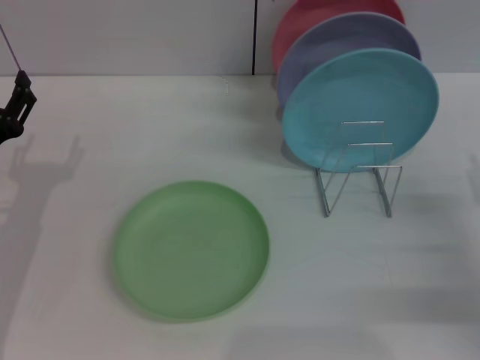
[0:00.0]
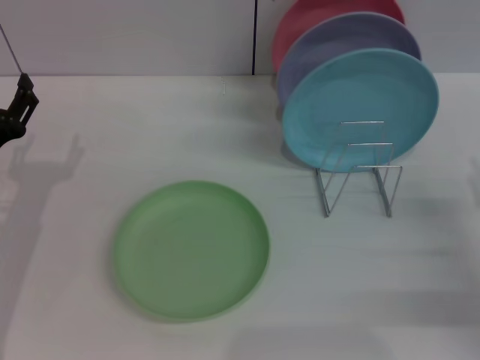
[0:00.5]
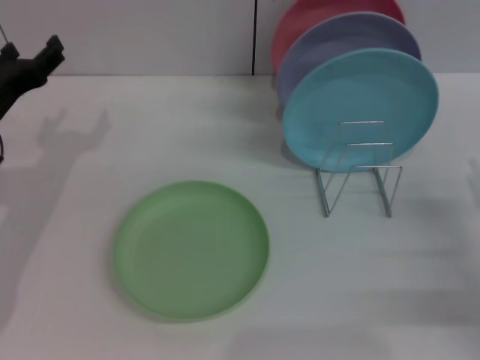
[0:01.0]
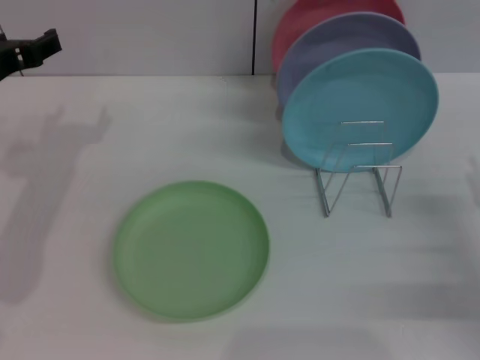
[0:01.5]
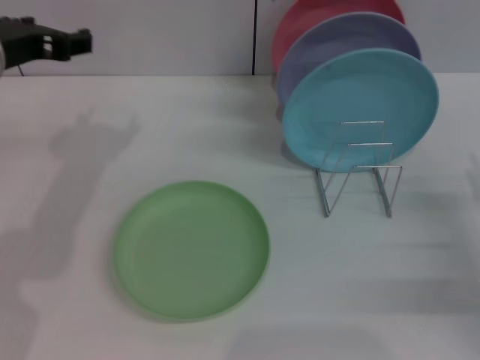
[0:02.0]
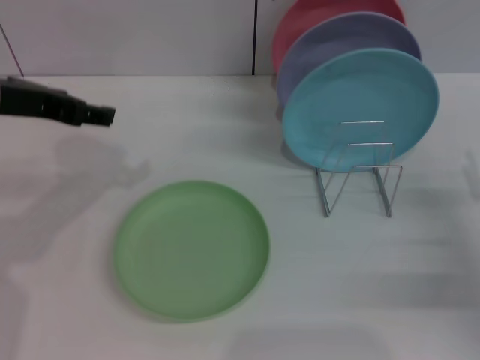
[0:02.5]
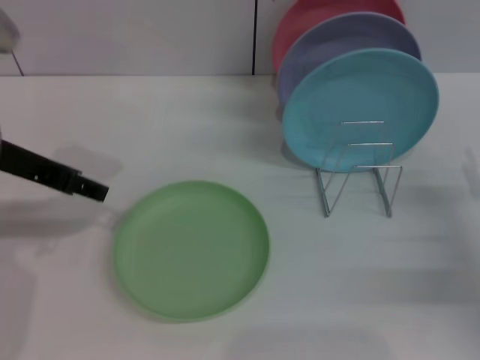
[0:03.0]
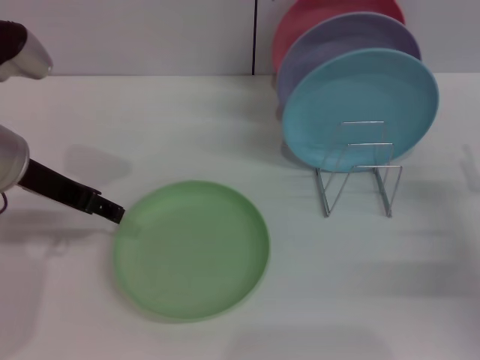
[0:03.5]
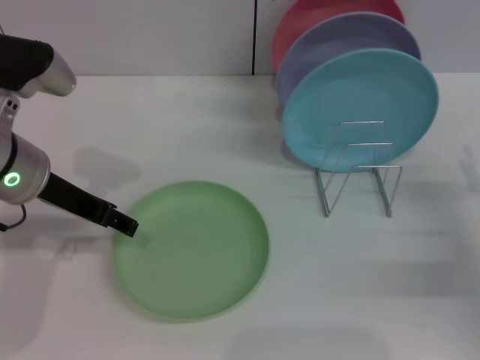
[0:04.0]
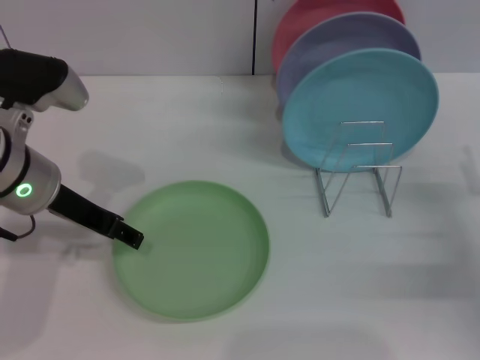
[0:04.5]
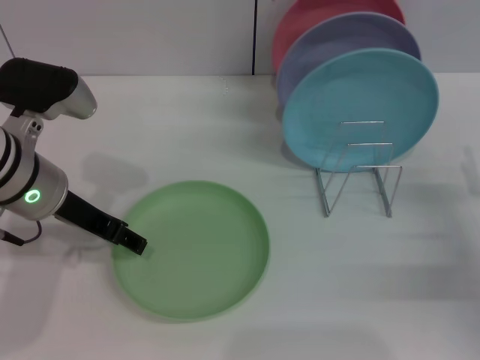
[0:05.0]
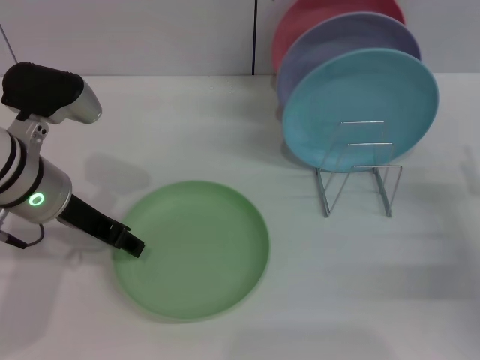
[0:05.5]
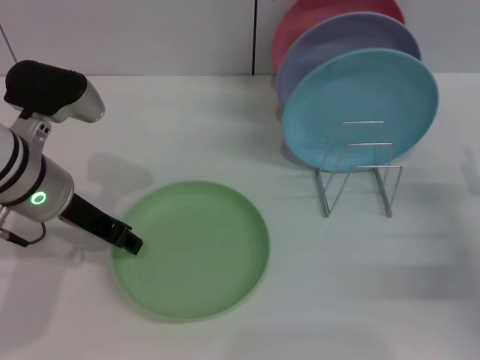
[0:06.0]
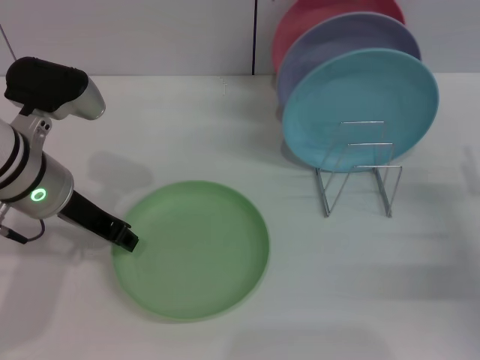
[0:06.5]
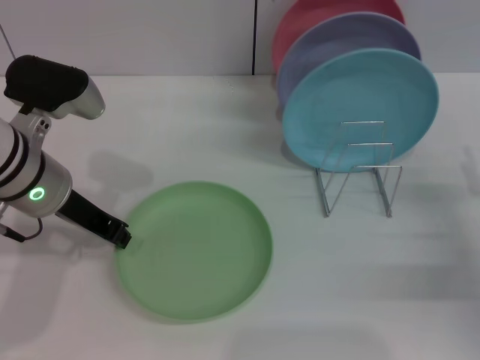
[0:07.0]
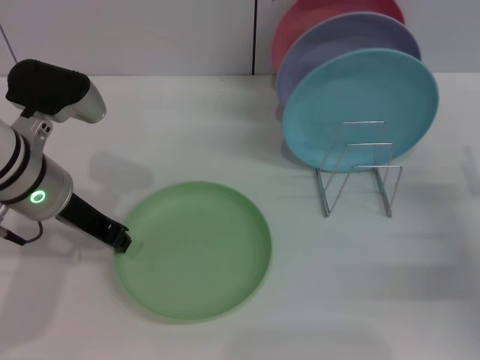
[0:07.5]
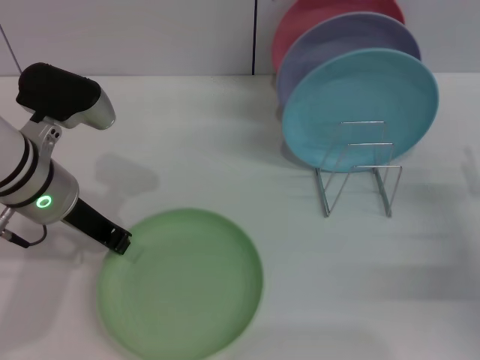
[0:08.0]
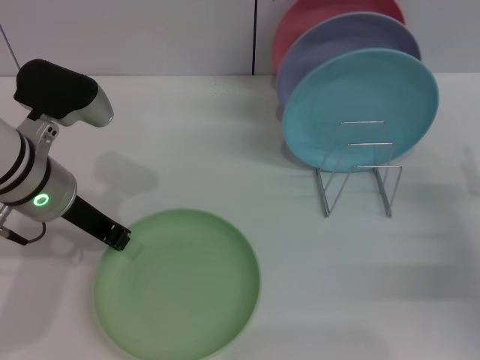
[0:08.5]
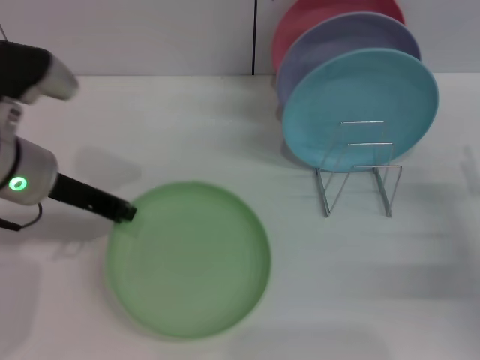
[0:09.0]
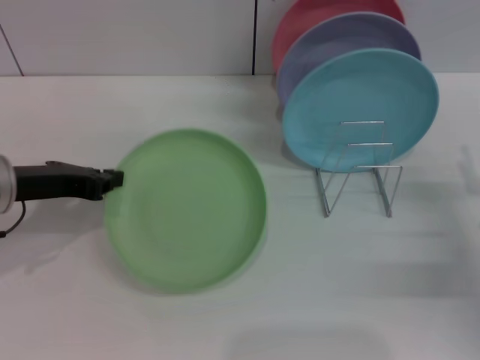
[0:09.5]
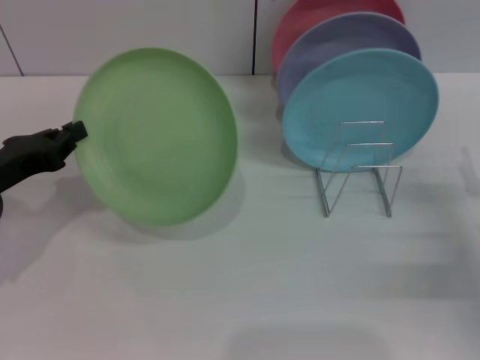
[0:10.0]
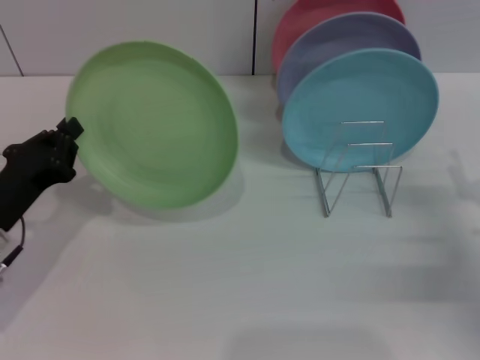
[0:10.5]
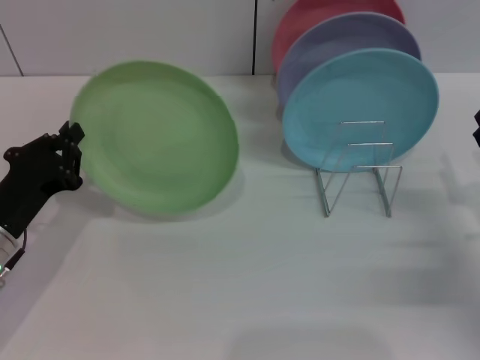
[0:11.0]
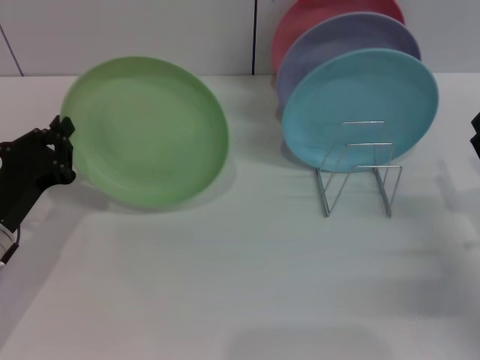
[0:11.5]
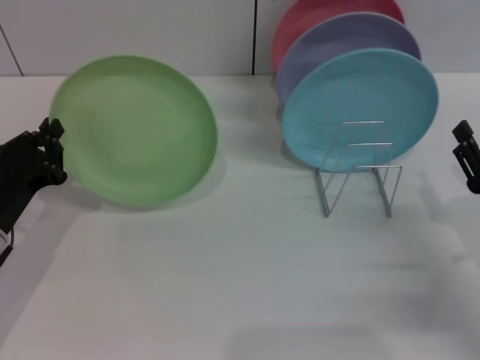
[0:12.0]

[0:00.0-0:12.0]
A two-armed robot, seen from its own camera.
Task of the whole recording: Grip the plate with one hand, pass it to the other, then set it on the shelf.
Step, 0.0 to 10.0 s: Pick up the plate with the left gripper.
0.0 to 2.0 s: The left gripper heads upward, covering approximately 15 cm.
2.0 to 4.0 s: The left gripper moves downward, approximately 5 cm.
4.0 to 6.0 s: The grippers move only a little.
6.0 to 8.0 s: The left gripper closes its fingers.
8.0 to 10.0 s: The left gripper moves to the left, approximately 10 cm.
10.0 to 12.0 s: The left gripper travels downward by about 5 cm.

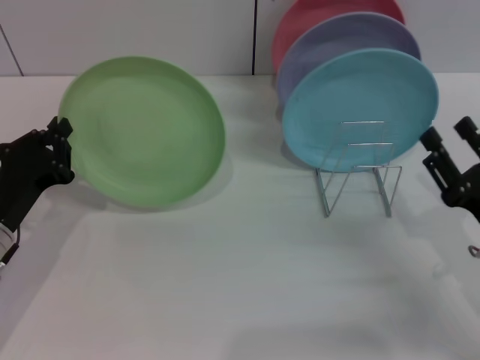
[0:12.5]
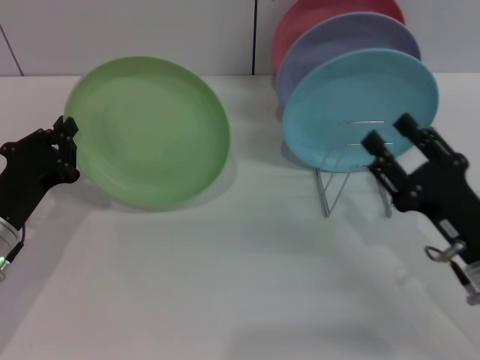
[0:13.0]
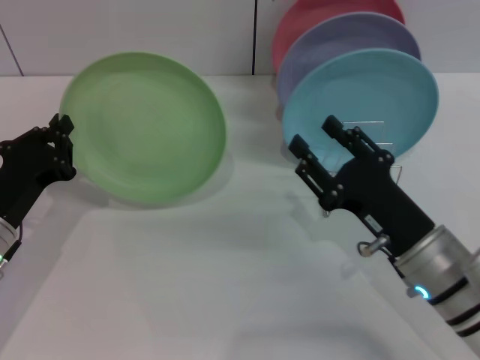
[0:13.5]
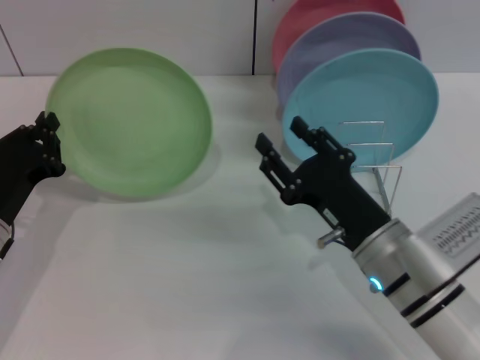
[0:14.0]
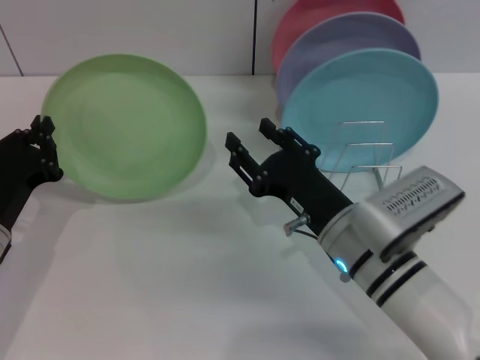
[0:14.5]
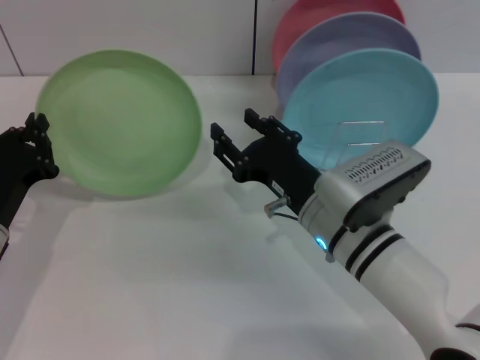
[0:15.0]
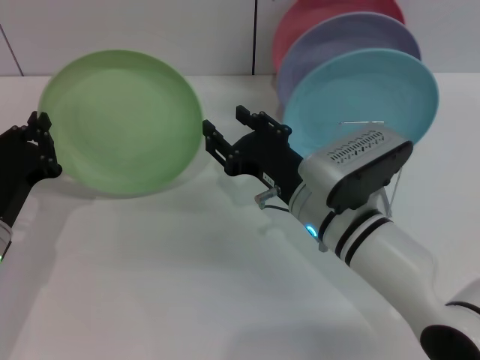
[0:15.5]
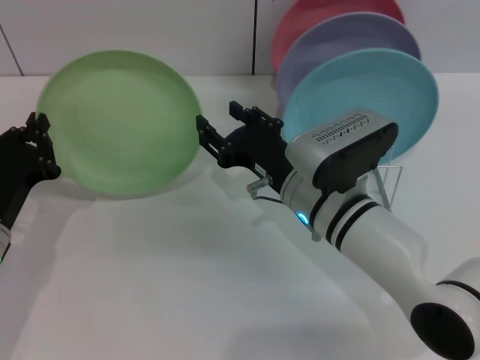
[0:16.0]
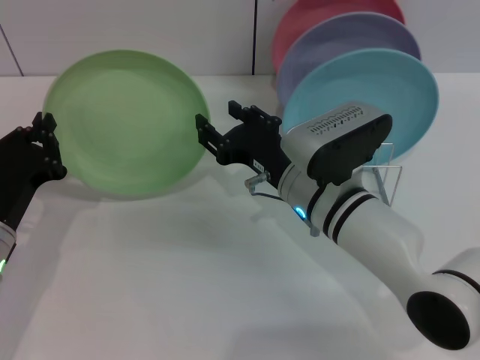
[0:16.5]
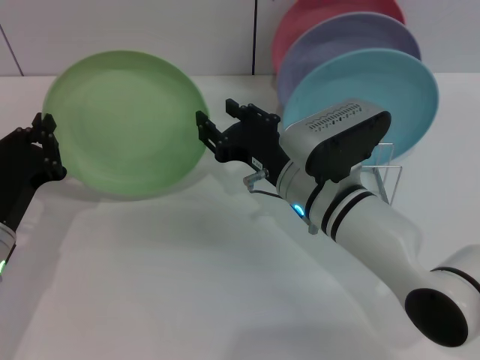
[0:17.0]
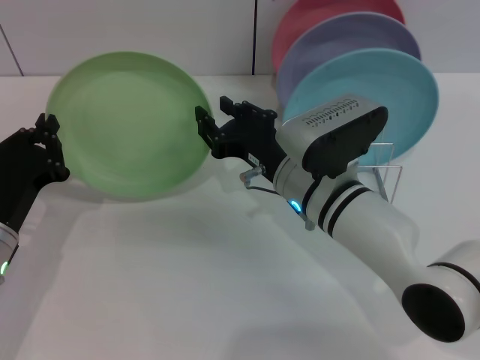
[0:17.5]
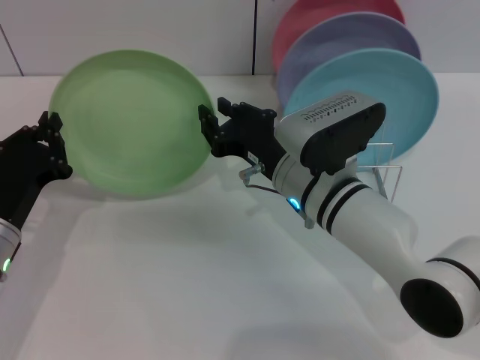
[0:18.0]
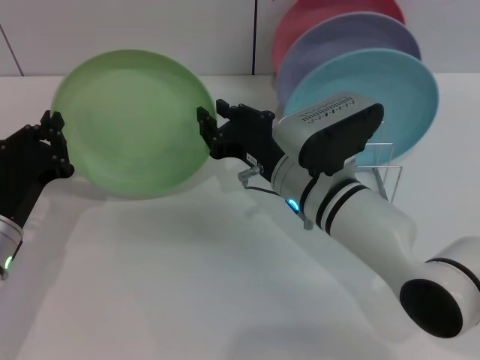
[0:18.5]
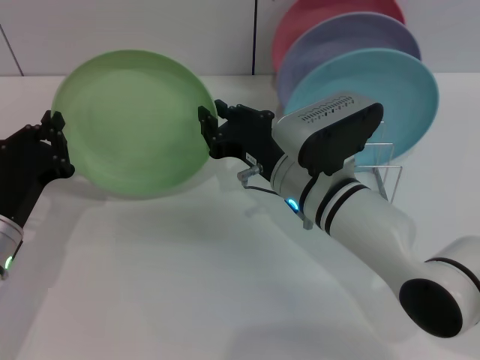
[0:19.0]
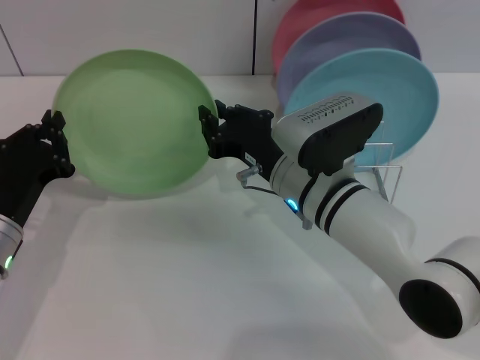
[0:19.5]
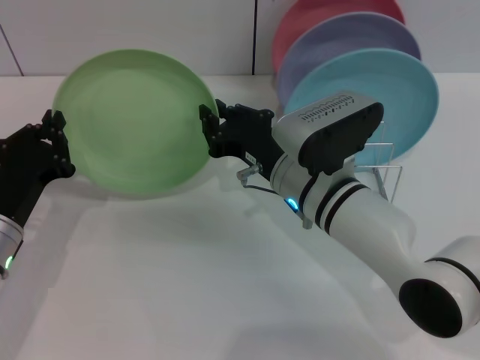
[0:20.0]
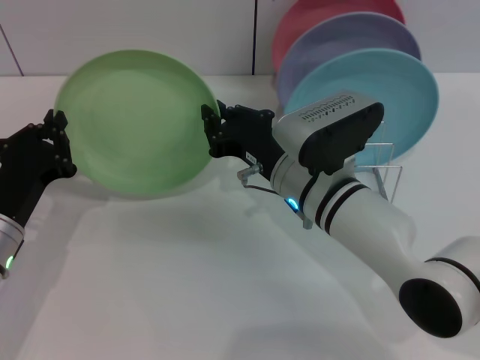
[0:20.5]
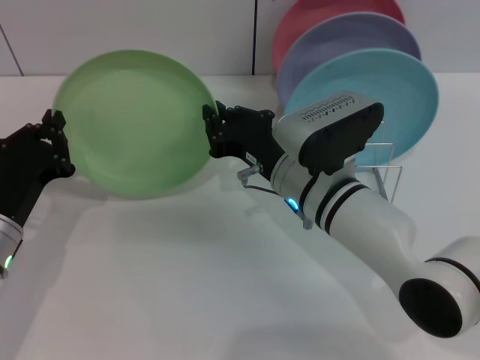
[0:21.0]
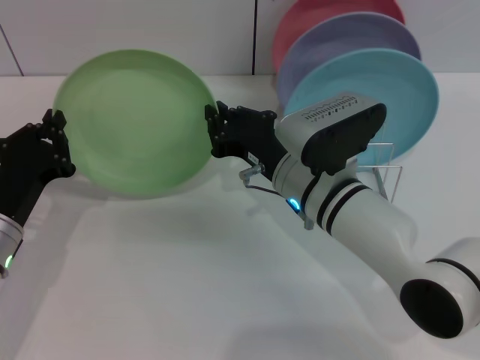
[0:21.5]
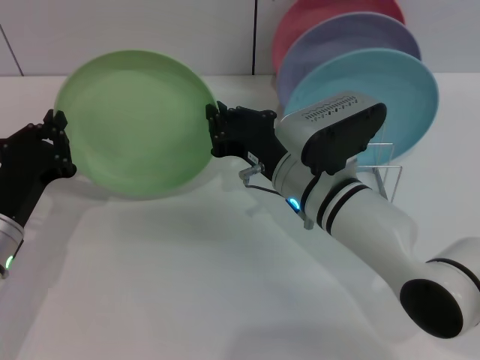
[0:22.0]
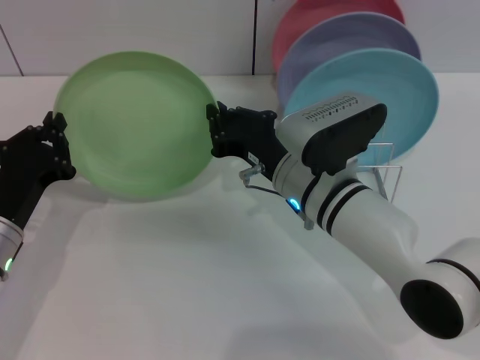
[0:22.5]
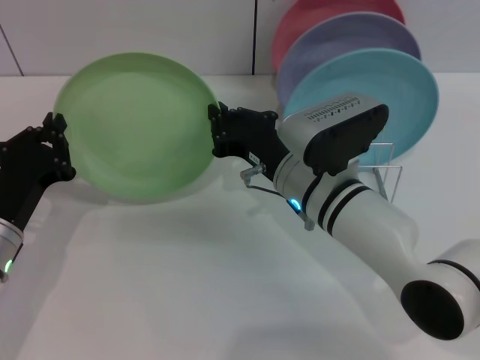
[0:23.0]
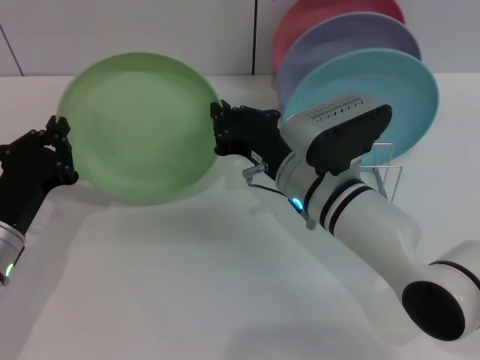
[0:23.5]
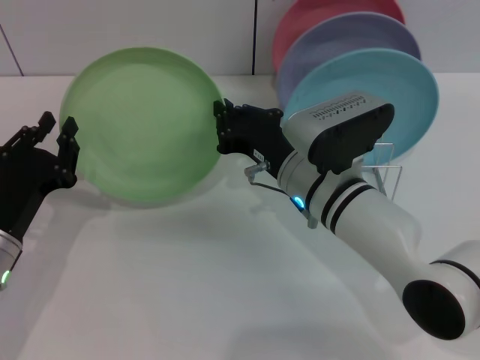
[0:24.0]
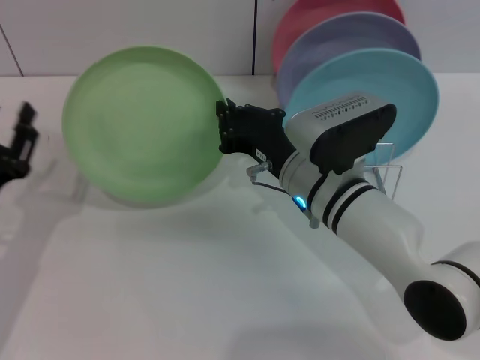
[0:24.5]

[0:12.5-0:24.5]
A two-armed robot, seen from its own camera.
Task of the whole recording: Grip the plate with one hand, pass it to the other, then set it on the shelf.
Step, 12.5 to 24.0 s: Pass the plate from the left gripper to the right gripper.
12.5 to 14.5 s: The right gripper shifts approximately 15 cm to the left.
14.5 to 16.5 s: The right gripper travels forward by roughly 5 cm.
16.5 to 18.5 s: The right gripper closes its fingers.
18.5 to 22.5 s: The two grippers keep their place.
22.5 to 24.5 s: The left gripper opens.

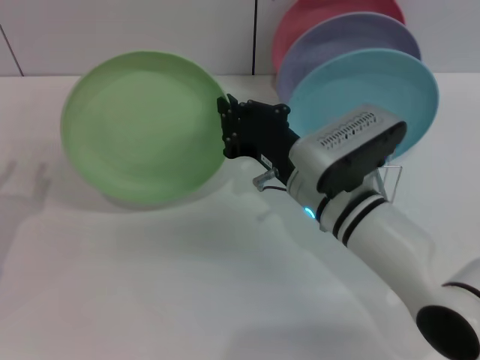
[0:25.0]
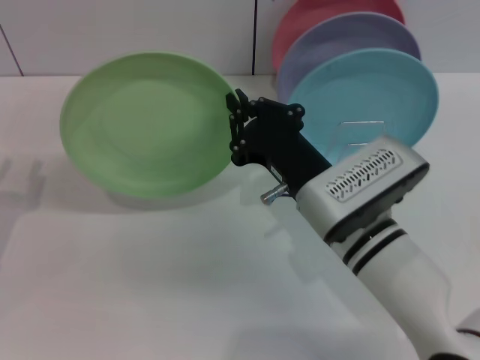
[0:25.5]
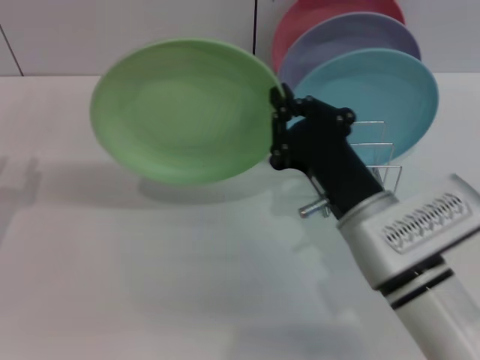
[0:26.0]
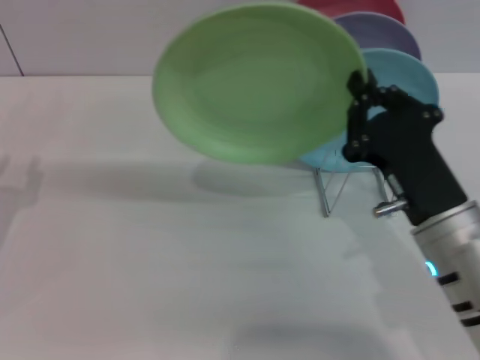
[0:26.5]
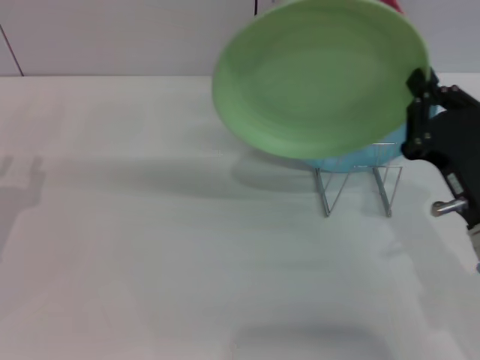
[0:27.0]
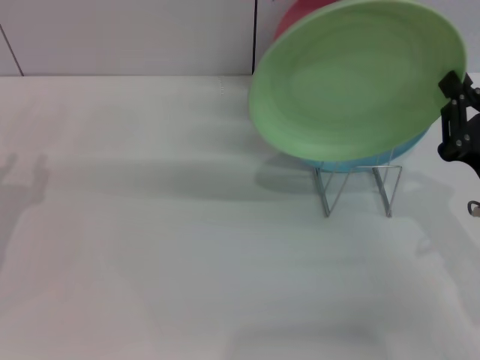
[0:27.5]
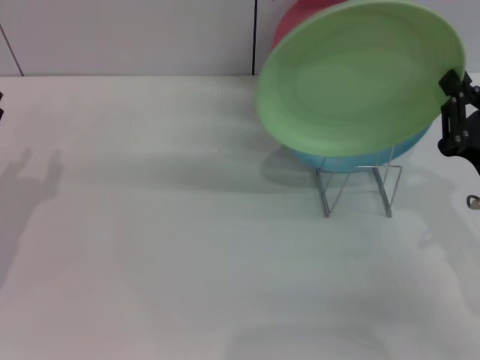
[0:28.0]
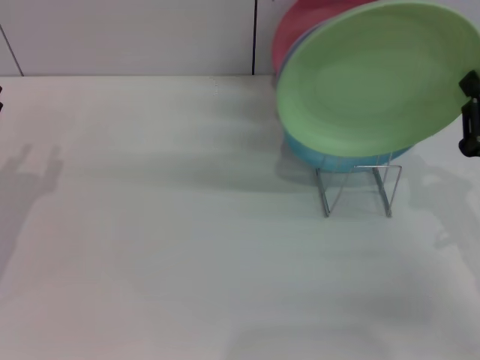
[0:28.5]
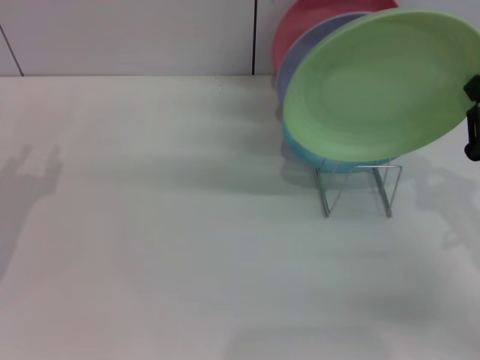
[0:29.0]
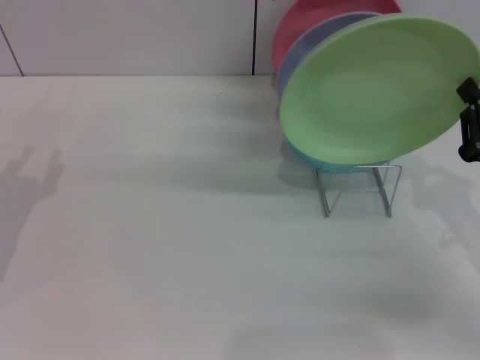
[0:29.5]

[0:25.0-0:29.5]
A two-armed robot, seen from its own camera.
Task of the whole recording: Grip the plate with one hand, pass it to the other, then set it on the shelf.
25.0 to 27.0 s: The right gripper heads to the right and backward, covering roughly 15 cm.
27.0 to 29.5 s: The right gripper is displaced to the right by some 10 cm.
